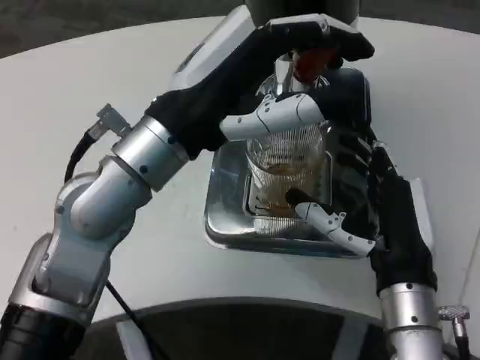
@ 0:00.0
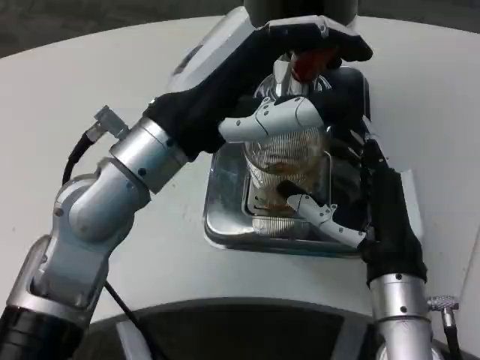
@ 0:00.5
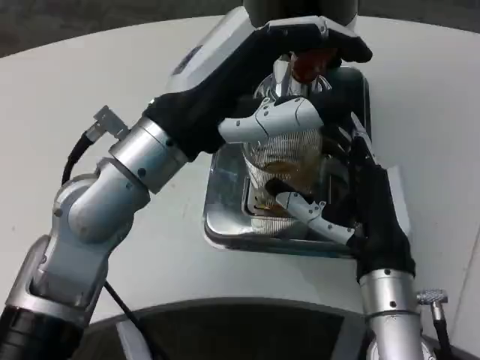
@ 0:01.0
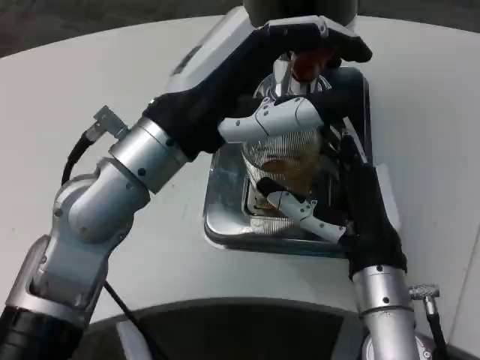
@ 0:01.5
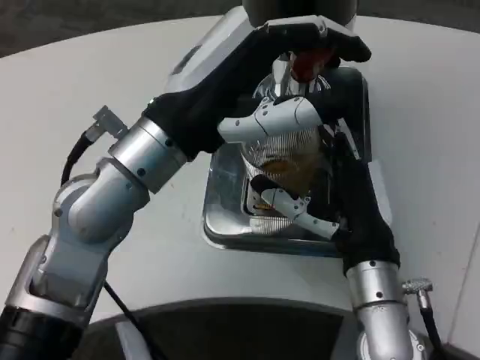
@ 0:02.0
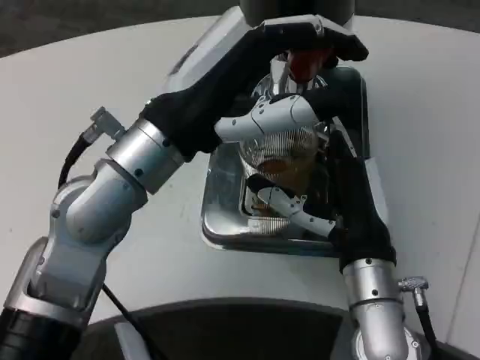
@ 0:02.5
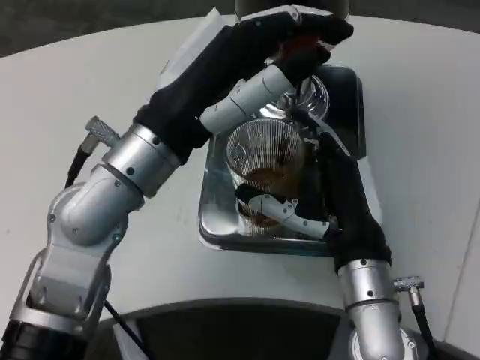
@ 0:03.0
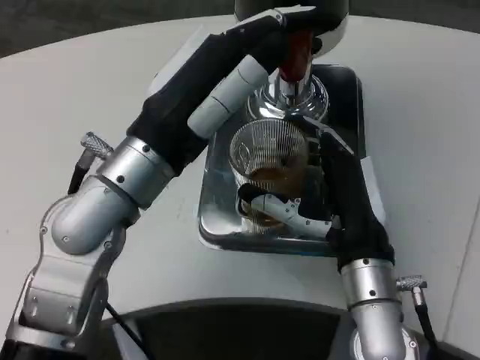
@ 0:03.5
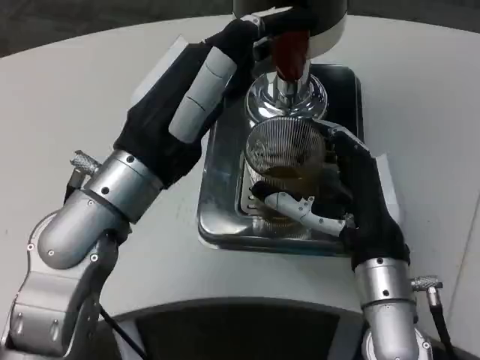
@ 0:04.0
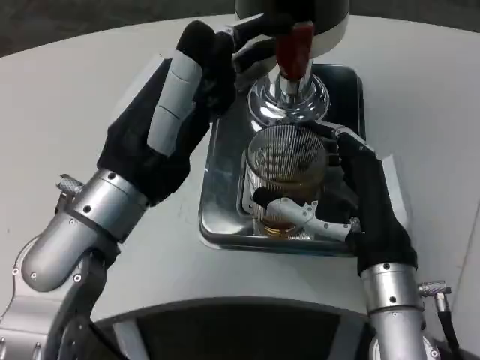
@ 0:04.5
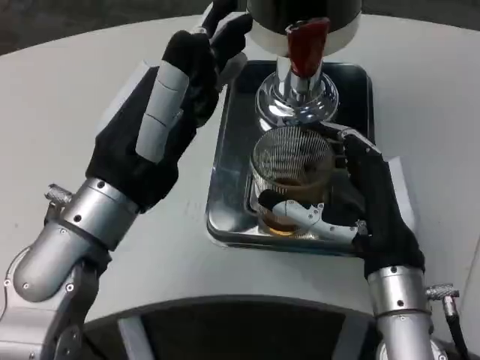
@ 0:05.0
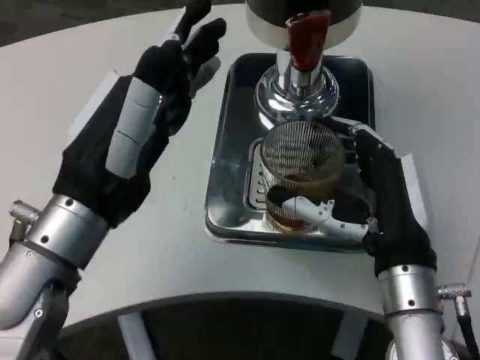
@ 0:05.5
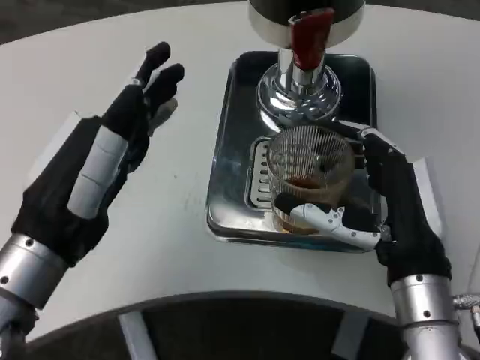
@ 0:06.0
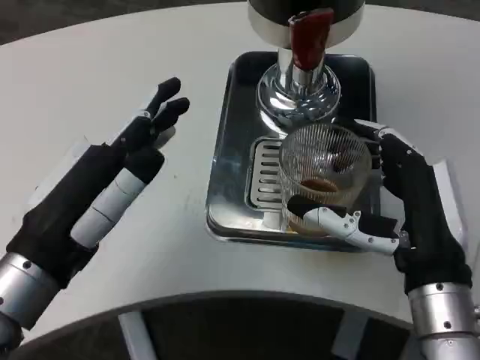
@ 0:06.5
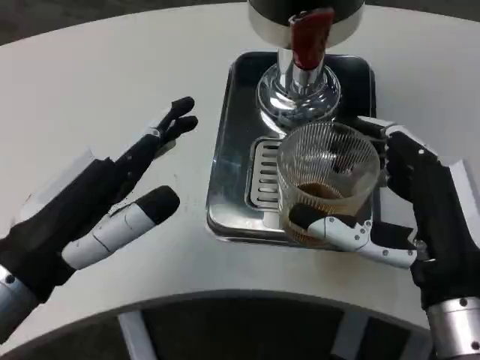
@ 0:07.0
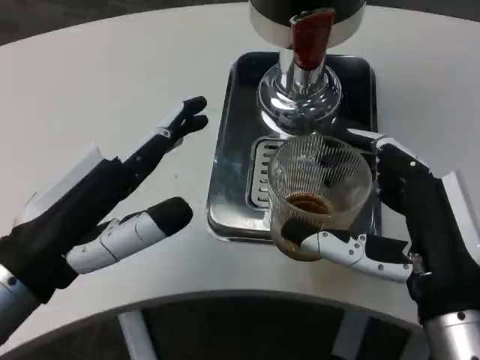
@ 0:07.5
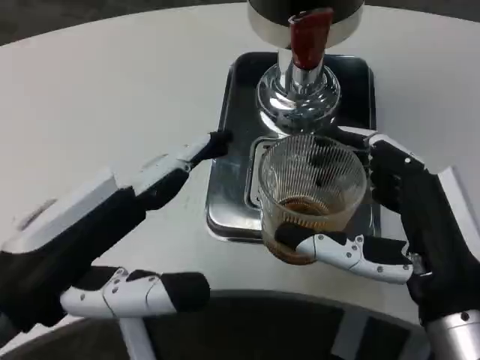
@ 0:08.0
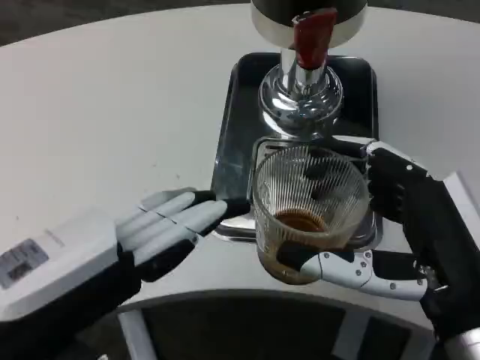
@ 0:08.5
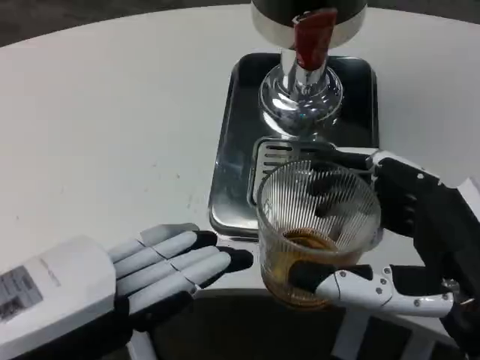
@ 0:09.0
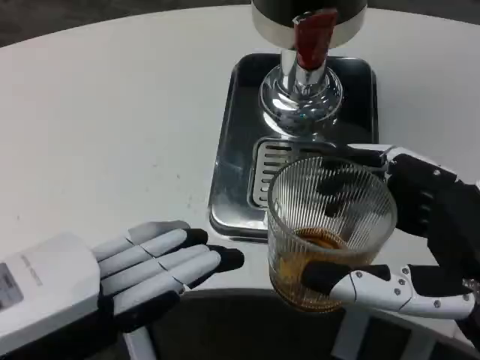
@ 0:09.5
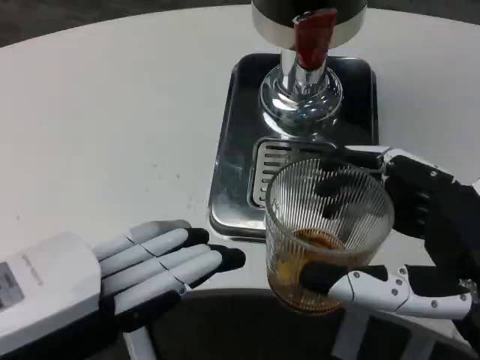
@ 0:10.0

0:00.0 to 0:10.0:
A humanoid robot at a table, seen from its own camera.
Task of the whole recording: Grasp the cup under the faucet to collect the drink, then remove the cup.
0:00.0 to 0:02.0: The hands stay close to where they were, moving slightly.
0:04.0 to 0:06.0: The left hand heads to the left and backward, covering approximately 10 cm.
0:06.0 to 0:08.0: Both hands travel together backward, approximately 5 cm.
0:08.0 to 0:10.0: The right hand shifts by some 5 cm; the left hand shifts by approximately 5 cm.
